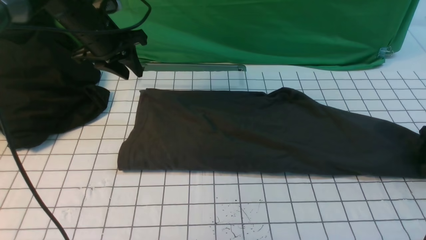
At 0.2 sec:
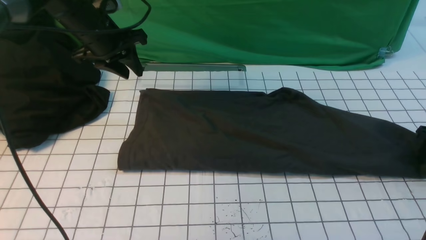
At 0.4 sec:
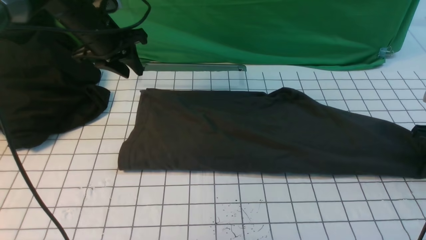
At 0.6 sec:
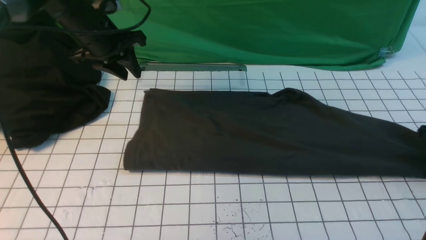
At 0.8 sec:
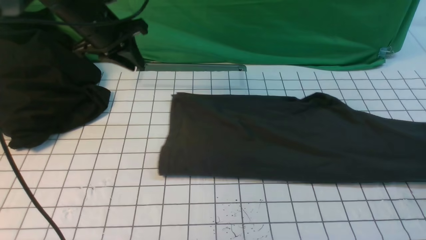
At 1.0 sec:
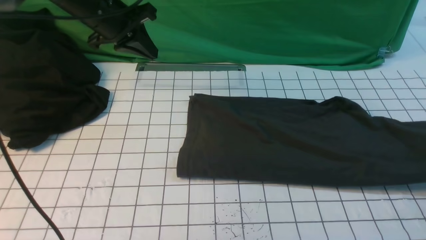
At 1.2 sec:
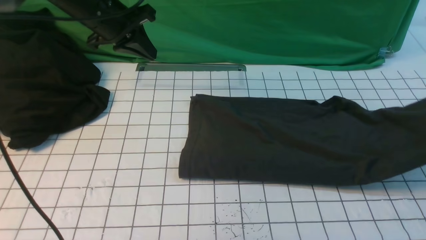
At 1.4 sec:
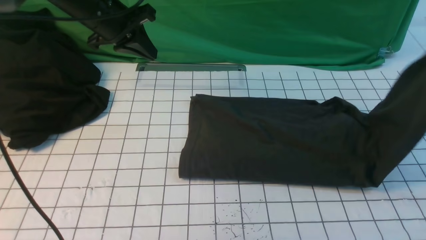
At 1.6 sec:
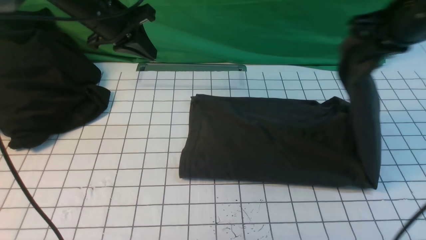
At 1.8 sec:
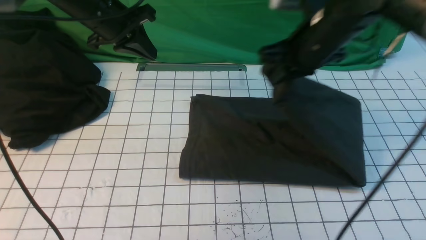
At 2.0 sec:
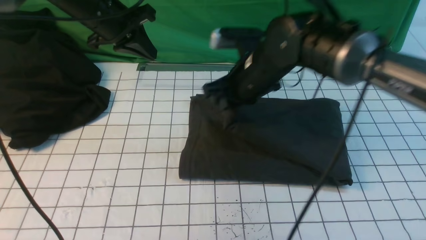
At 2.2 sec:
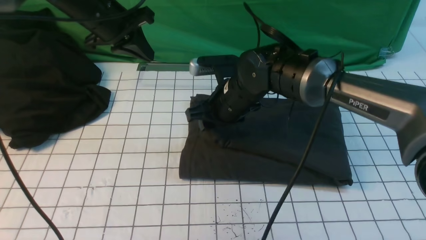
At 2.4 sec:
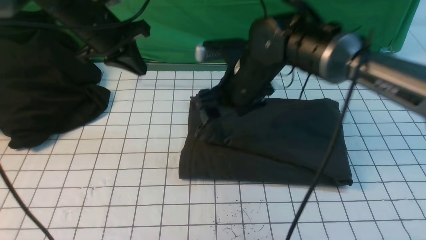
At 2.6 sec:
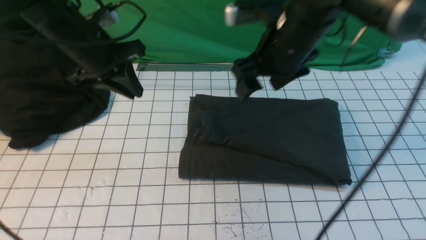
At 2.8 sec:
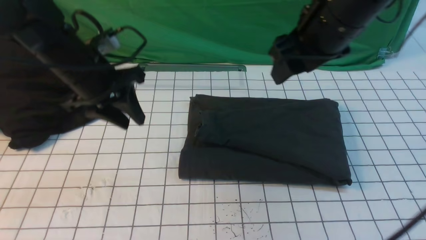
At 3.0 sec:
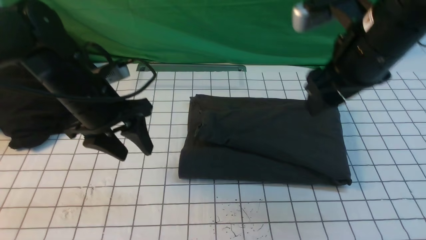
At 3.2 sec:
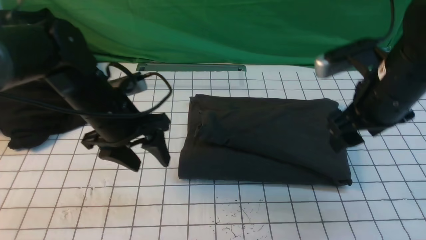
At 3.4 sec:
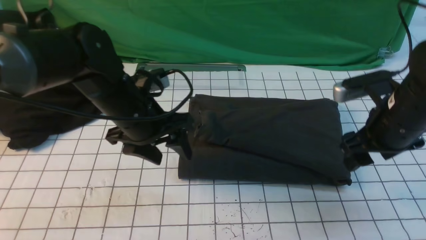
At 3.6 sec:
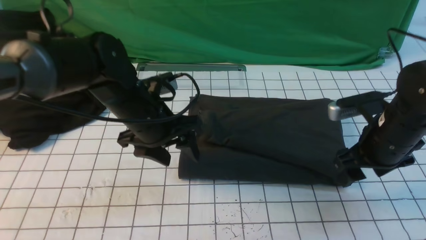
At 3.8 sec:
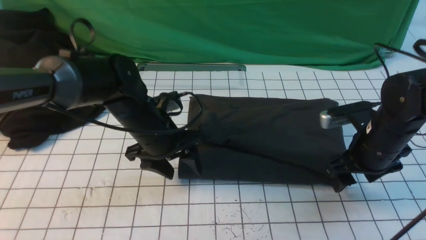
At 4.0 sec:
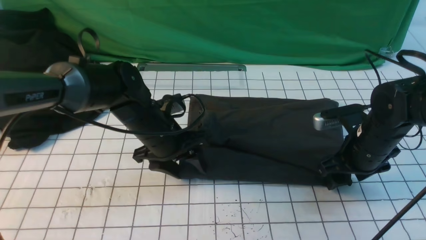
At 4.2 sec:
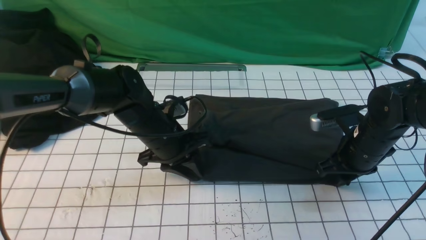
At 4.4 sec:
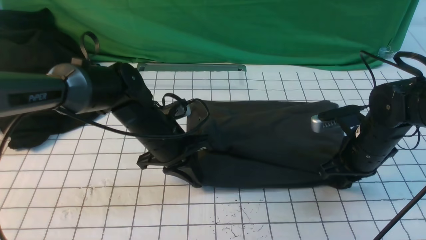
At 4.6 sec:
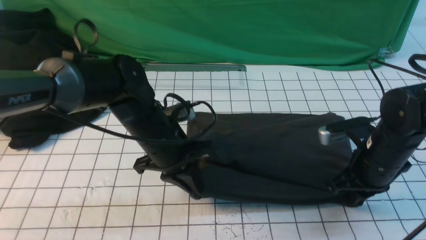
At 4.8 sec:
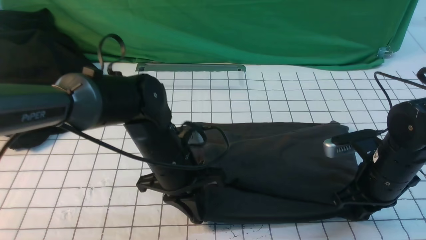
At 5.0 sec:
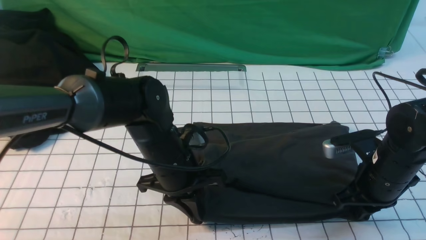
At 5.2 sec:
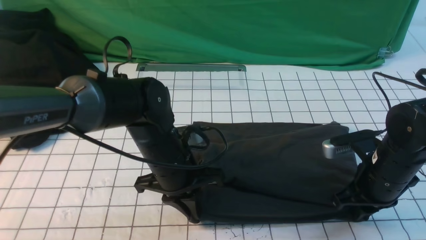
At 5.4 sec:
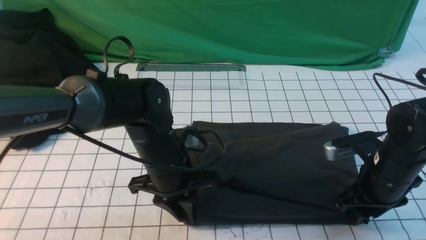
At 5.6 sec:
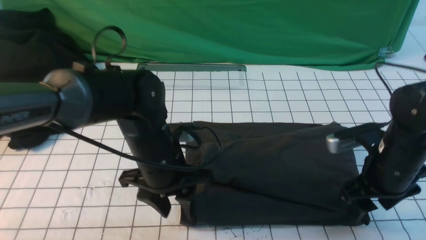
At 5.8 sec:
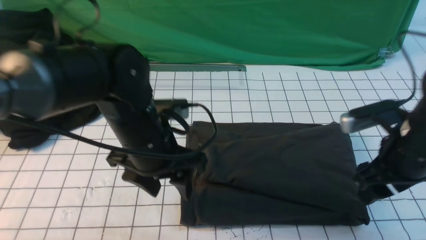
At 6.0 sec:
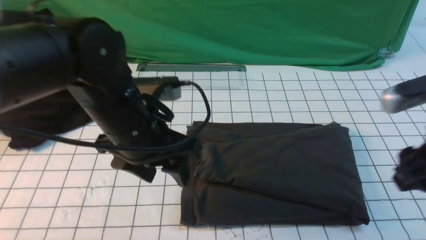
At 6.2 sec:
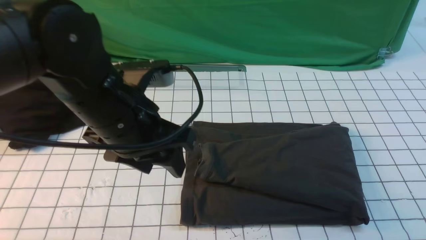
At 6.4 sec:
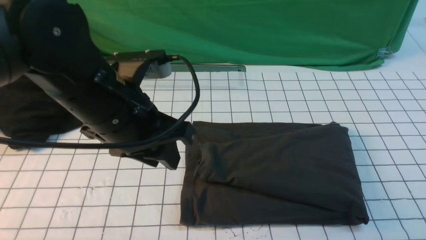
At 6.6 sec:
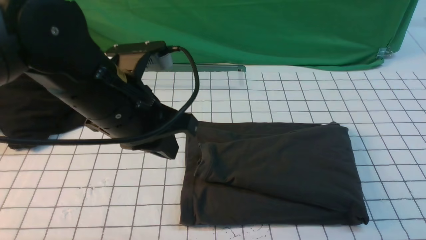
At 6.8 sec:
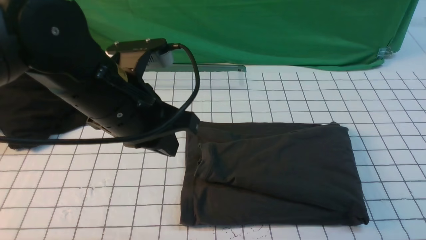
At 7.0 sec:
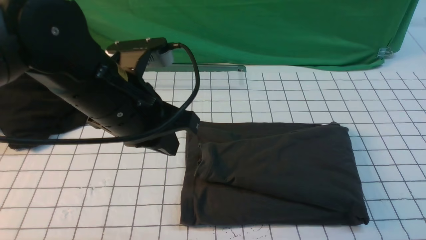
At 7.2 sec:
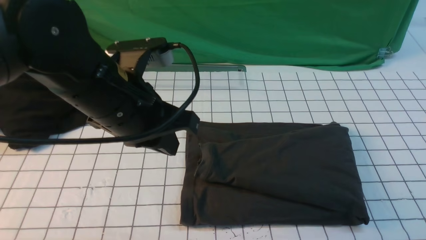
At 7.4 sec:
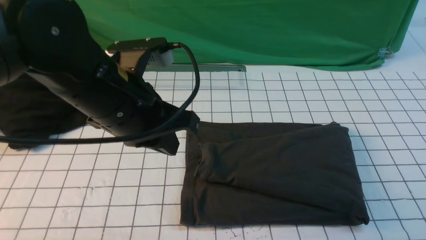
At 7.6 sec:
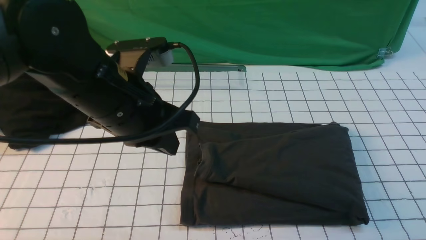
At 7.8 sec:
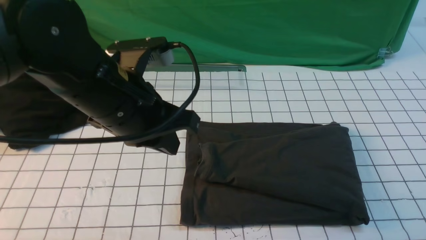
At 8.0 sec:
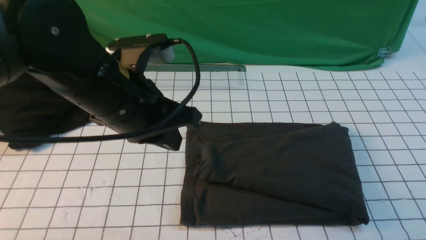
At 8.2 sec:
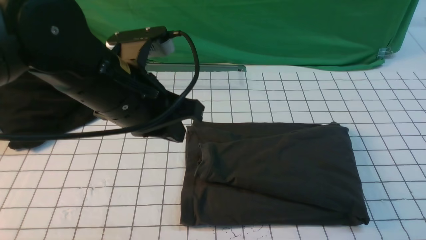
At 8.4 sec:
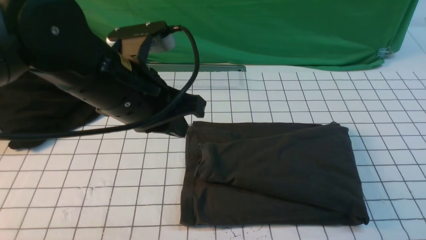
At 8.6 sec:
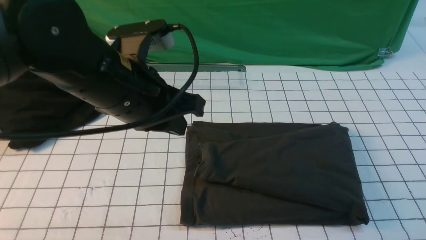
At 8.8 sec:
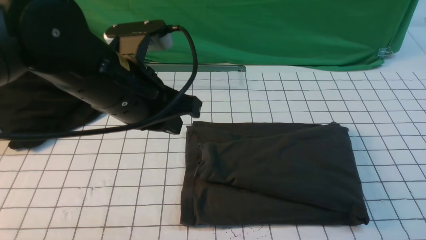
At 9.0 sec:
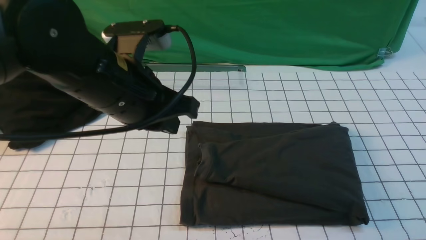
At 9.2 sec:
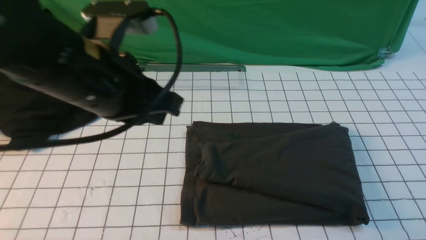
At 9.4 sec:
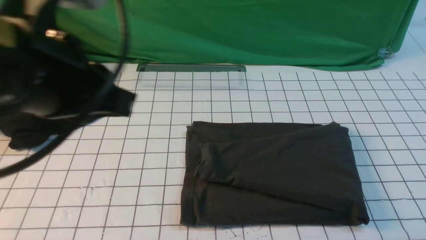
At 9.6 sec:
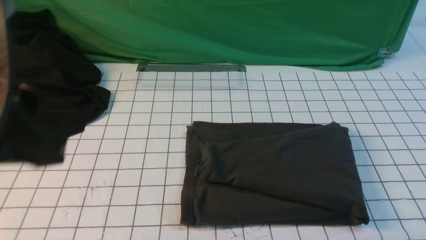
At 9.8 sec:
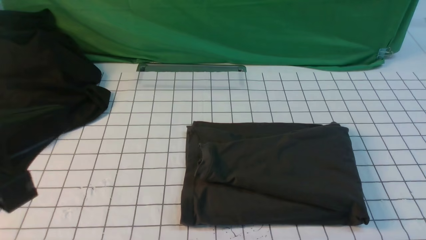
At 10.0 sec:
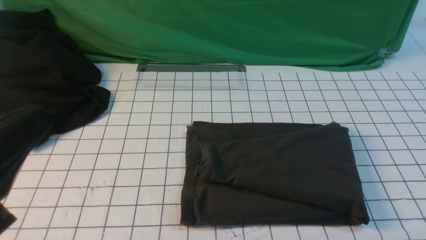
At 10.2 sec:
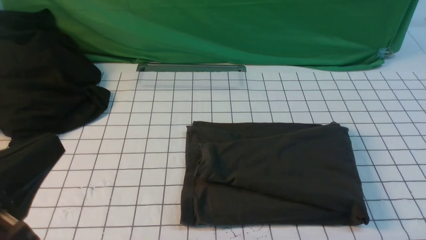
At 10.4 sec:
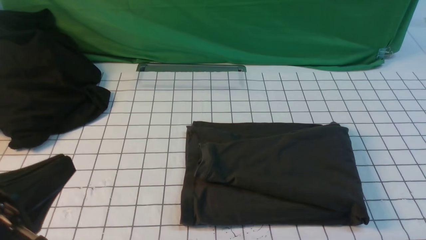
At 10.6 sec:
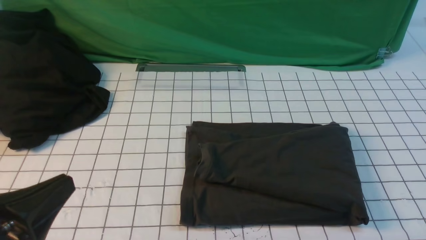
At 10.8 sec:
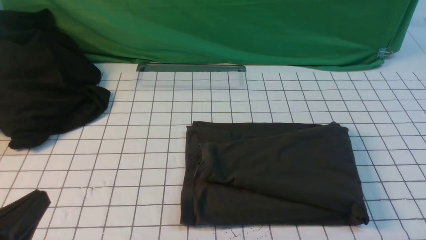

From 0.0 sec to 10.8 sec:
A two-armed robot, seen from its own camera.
Step, from 0.6 sec to 2.4 sec: use the right arm to drag the right edge of the fabric to the left and folds it over the left edge.
From 0.0 sec to 1.6 sec: The left gripper closes. The right gripper travels to the left and upward by roughly 30 cm, and closes.
From 1.6 sec to 3.0 sec: The left gripper heads backward and downward, covering some 15 cm, and opens its fingers. Meanwhile the right gripper shifts approximately 10 cm backward, moves some 20 cm to the left and comes back, and opens.
From 3.0 sec to 4.6 sec: The left gripper heads to the right and downward, covering roughly 10 cm, and closes up, while the right gripper goes roughly 15 cm downward, and closes its fingers.
From 4.6 sec to 6.2 sec: The right gripper travels upward and backward by approximately 25 cm, and opens, then closes again; the left gripper moves upward and backward, approximately 15 cm, and opens.
From 6.2 sec to 7.8 sec: The left gripper closes its fingers, while the right gripper travels backward by roughly 10 cm.
From 7.8 sec to 9.2 sec: The right gripper heads downward, covering some 15 cm. The left gripper is displaced upward by roughly 5 cm.
From 9.2 sec to 10.8 sec: The left gripper shifts approximately 25 cm backward, downward and to the left.

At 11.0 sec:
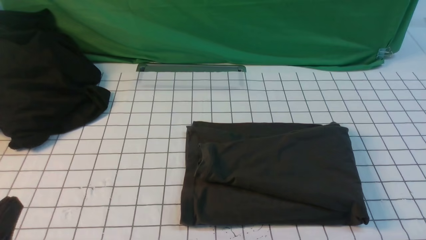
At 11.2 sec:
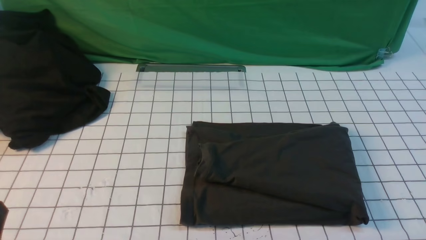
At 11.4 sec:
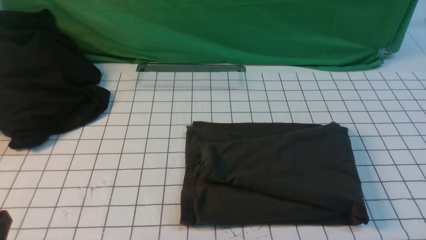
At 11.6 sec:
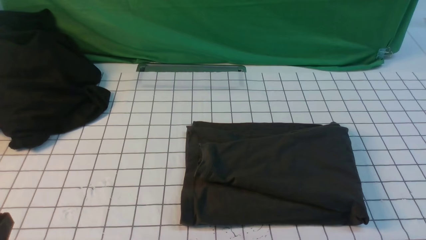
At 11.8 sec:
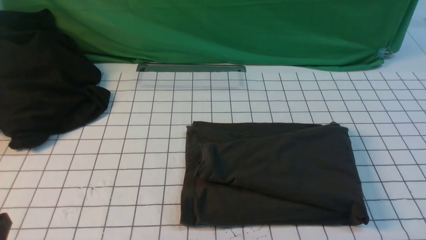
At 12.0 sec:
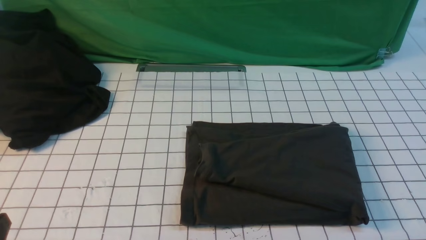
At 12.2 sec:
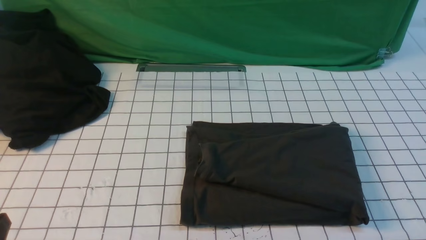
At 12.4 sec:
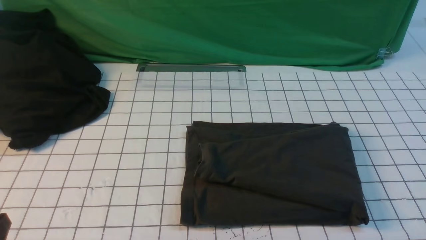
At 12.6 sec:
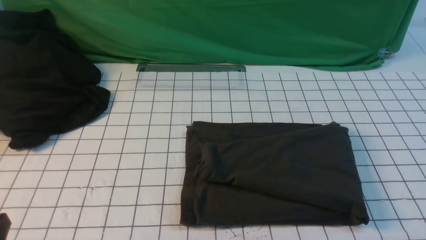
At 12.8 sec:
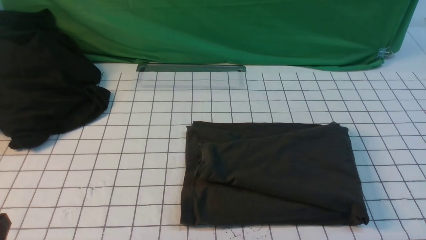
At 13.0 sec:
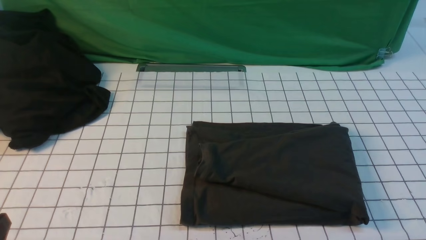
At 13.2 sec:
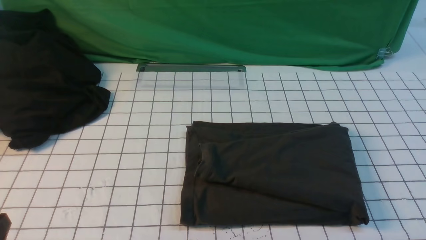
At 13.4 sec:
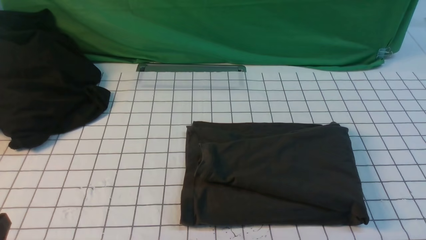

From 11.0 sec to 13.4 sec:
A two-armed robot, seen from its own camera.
From 12.2 sec to 13.4 sec: Neither gripper changes place.
